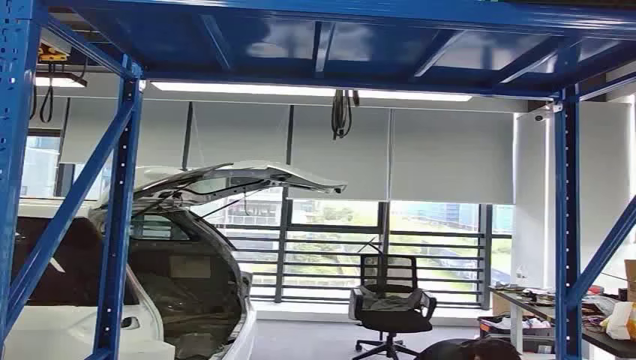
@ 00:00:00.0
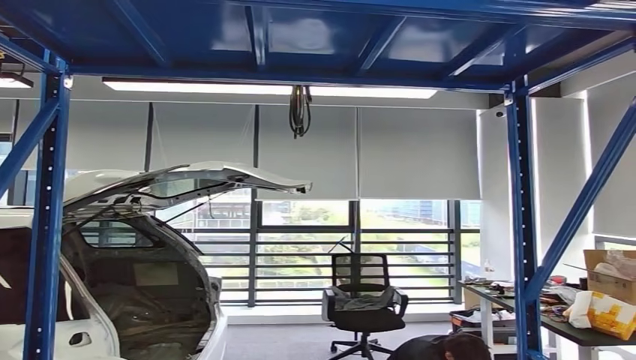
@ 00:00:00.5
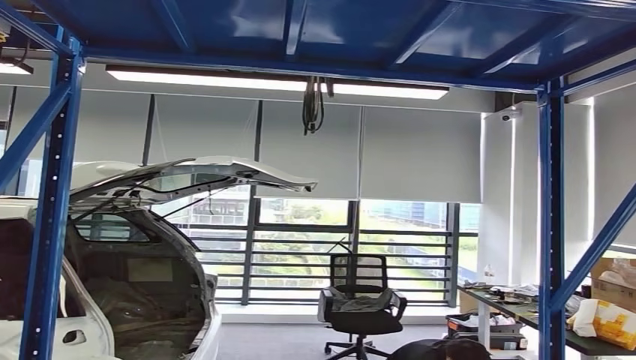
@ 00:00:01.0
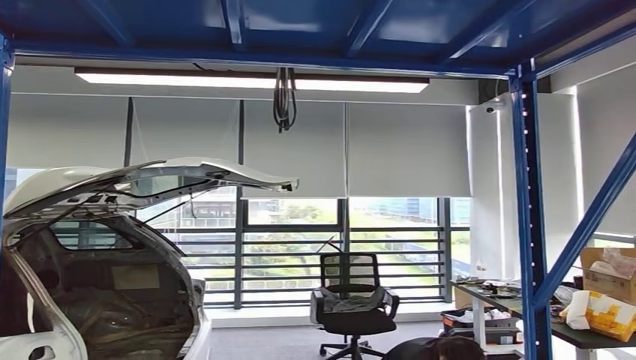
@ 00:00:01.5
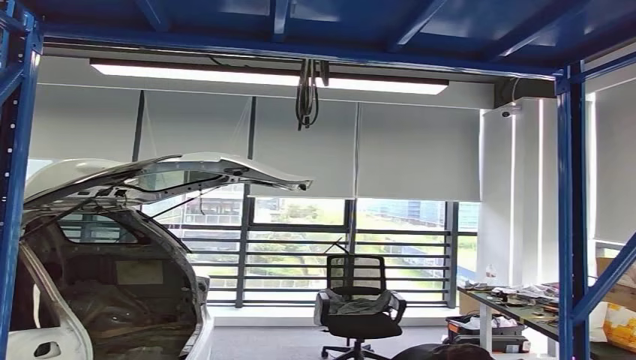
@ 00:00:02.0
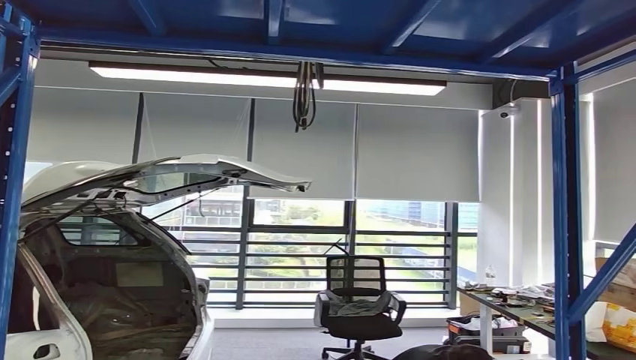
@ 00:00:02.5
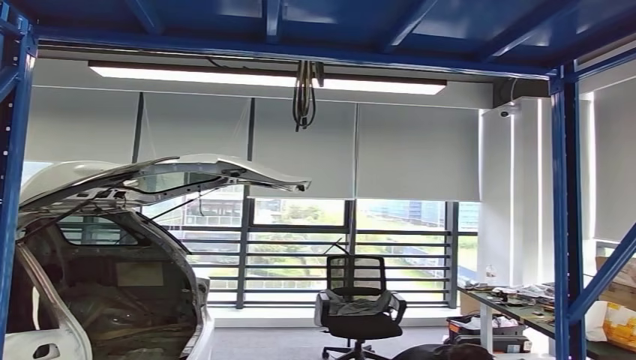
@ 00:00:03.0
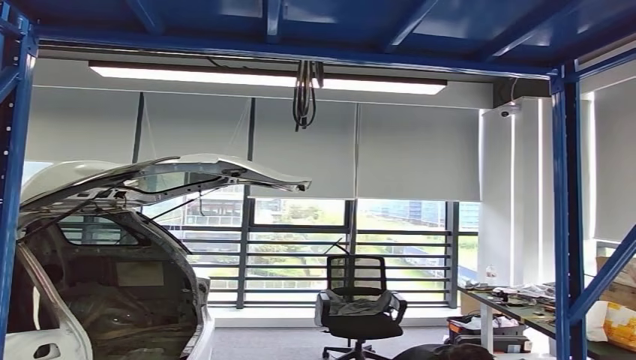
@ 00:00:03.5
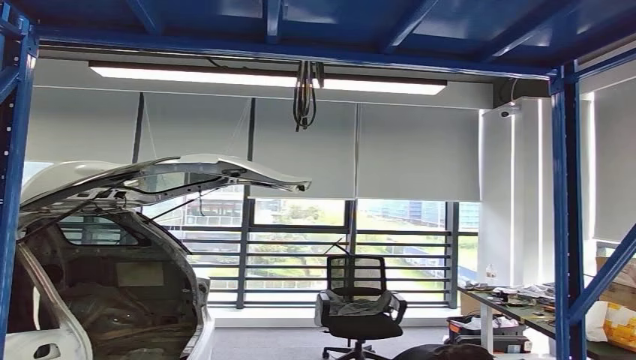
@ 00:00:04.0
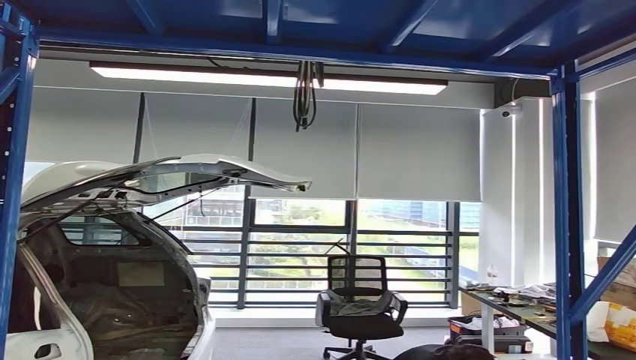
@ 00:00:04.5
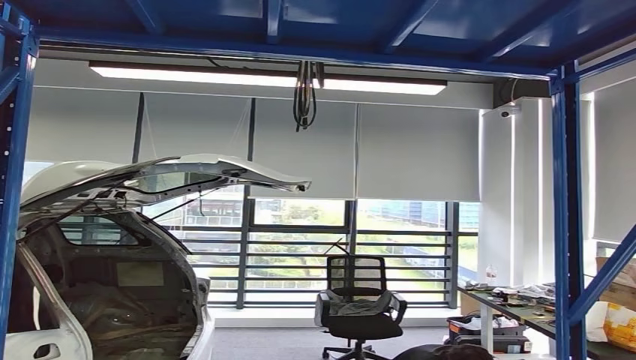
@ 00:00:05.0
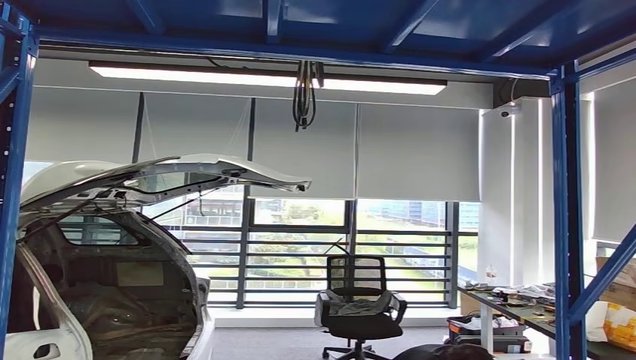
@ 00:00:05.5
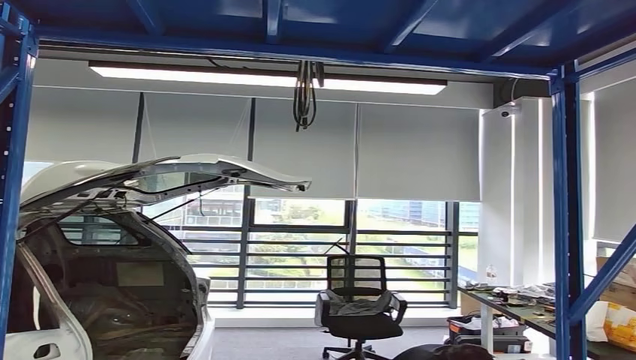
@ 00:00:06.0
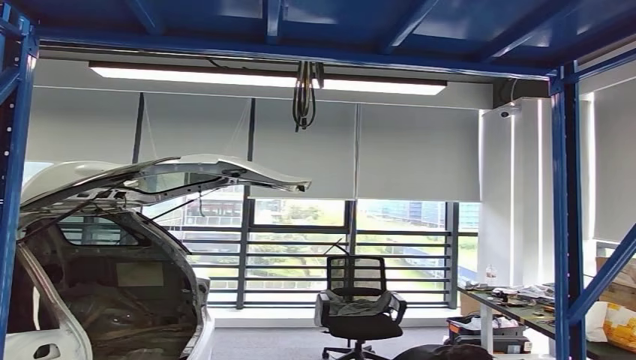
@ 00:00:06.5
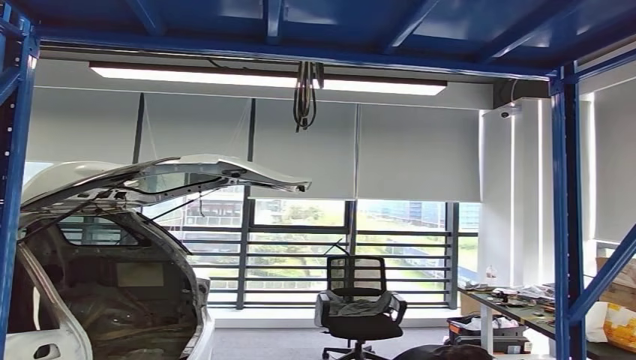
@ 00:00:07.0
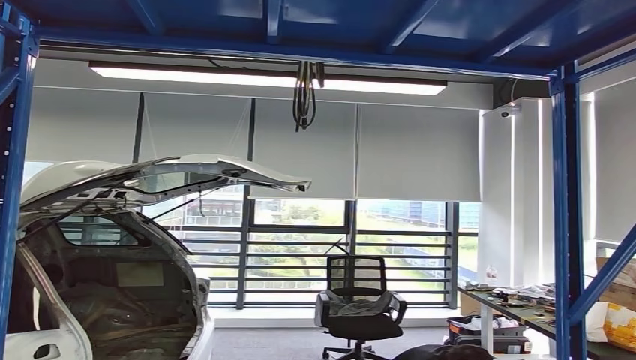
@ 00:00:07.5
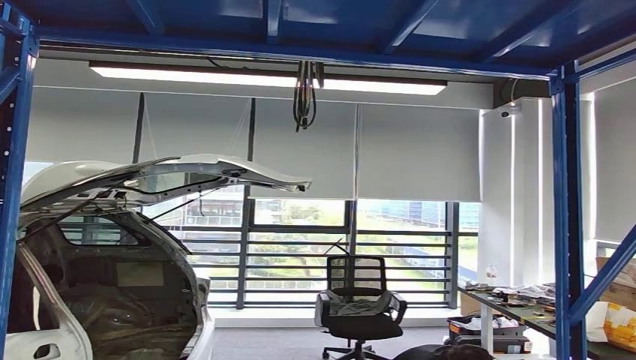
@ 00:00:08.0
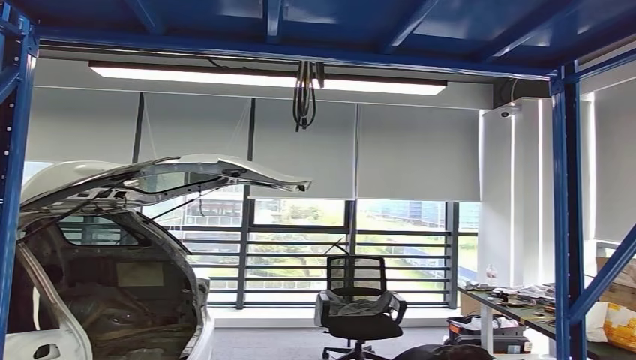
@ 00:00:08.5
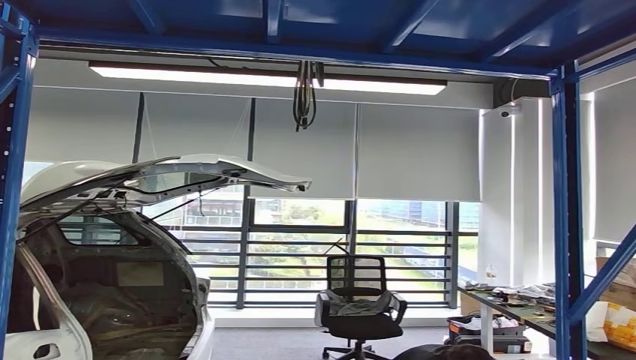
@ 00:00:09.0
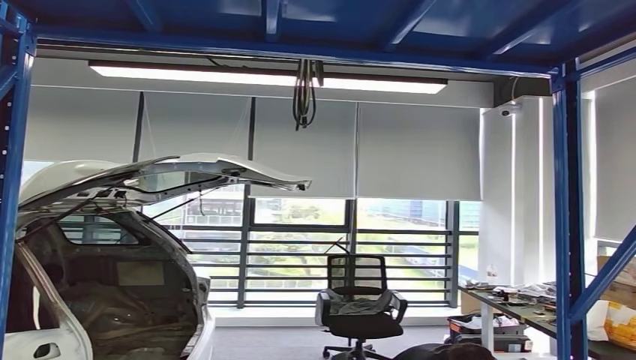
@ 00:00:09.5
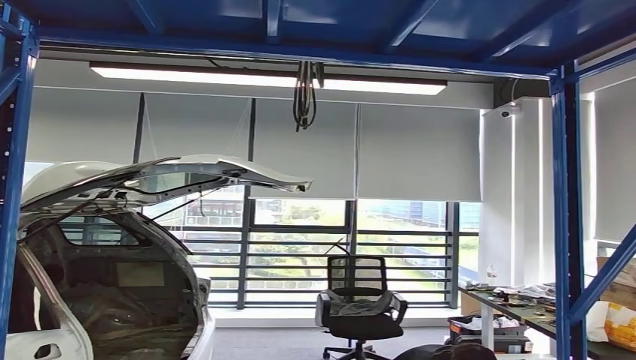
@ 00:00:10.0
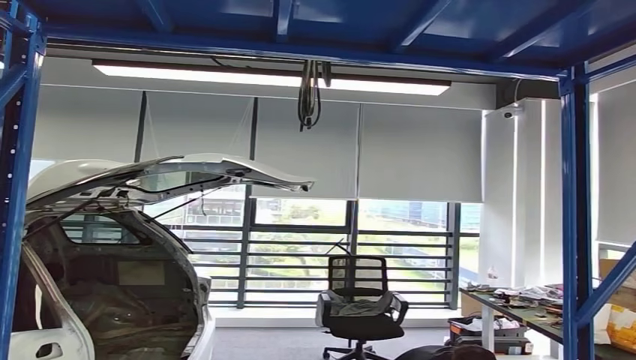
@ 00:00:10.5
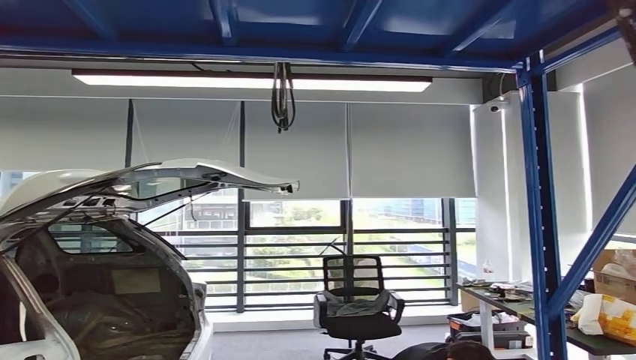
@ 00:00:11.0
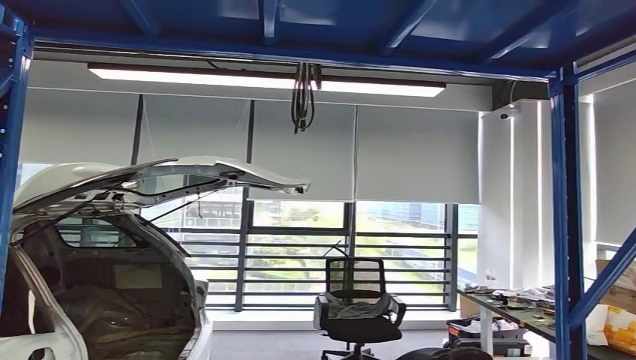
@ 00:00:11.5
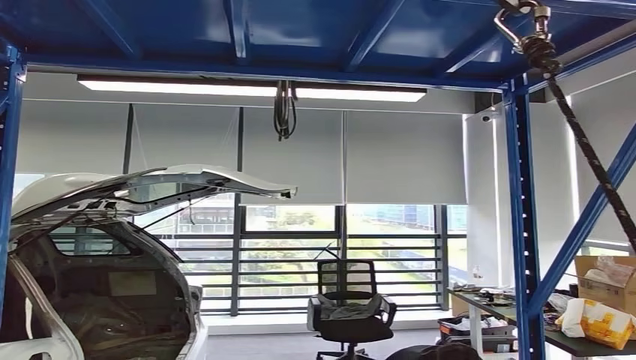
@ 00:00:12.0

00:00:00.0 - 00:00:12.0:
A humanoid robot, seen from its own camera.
Step, 00:00:00.0 - 00:00:09.0: Pick up the small component from the shelf.
00:00:02.0 - 00:00:04.0: The left hand moves to the right, some 5 cm, while the right hand travels forward by approximately 5 cm.

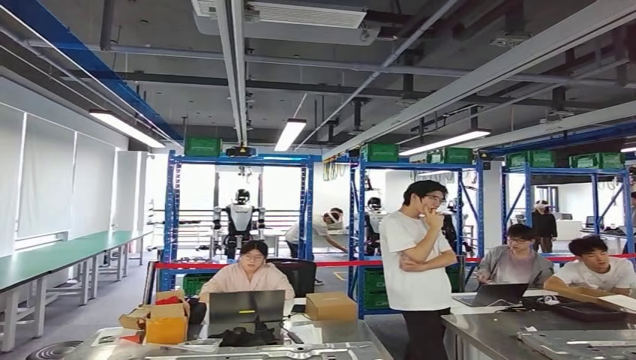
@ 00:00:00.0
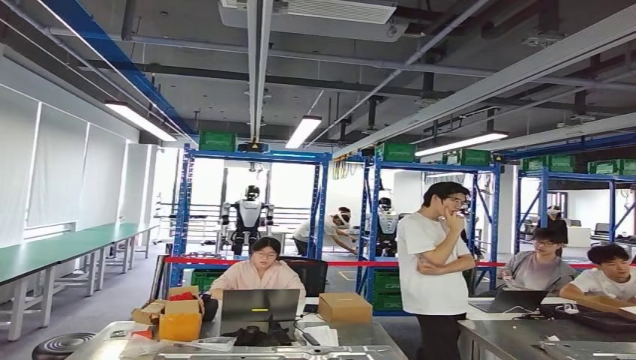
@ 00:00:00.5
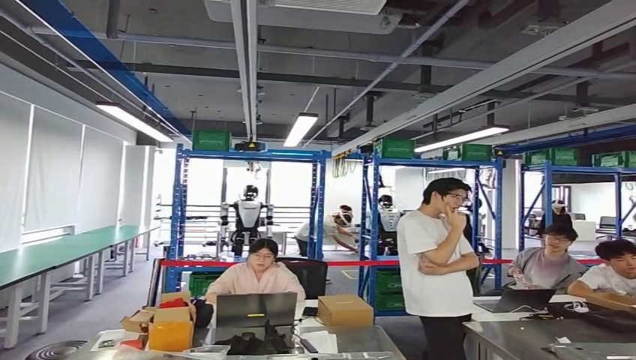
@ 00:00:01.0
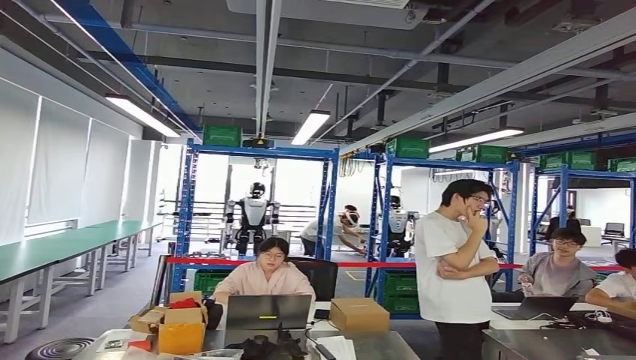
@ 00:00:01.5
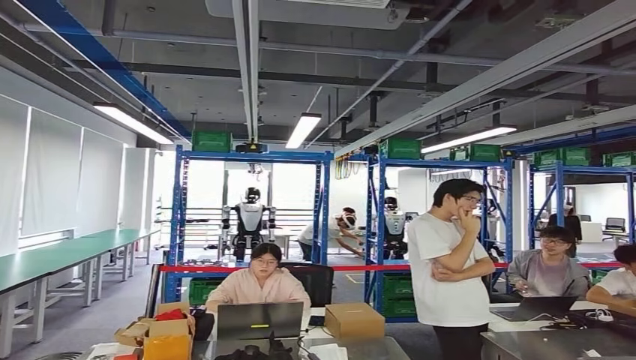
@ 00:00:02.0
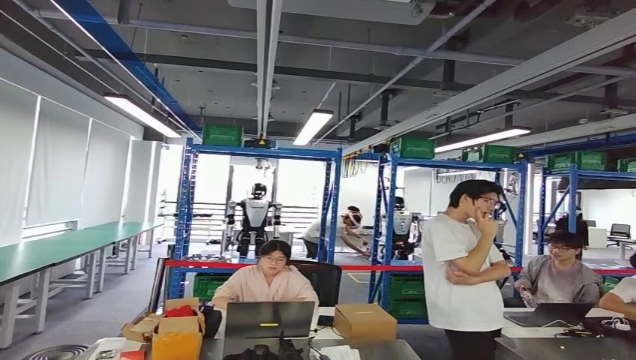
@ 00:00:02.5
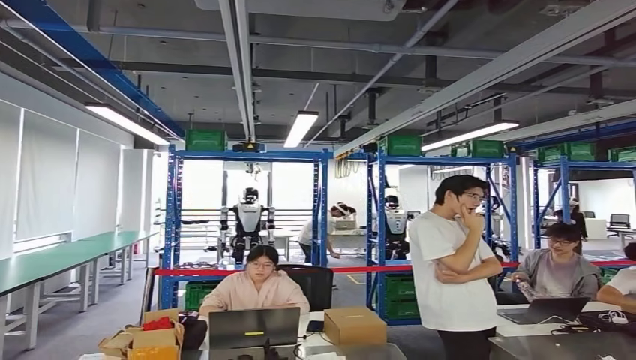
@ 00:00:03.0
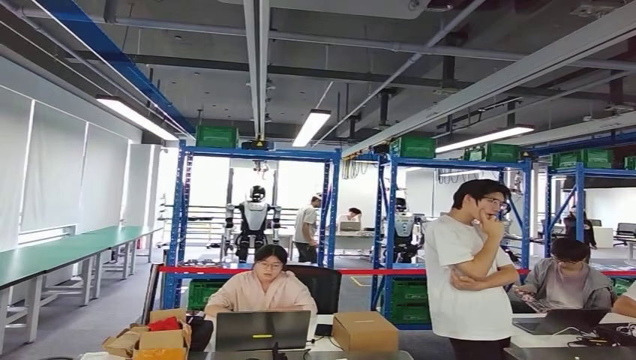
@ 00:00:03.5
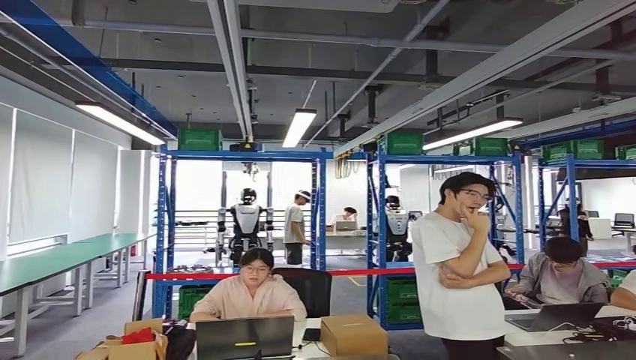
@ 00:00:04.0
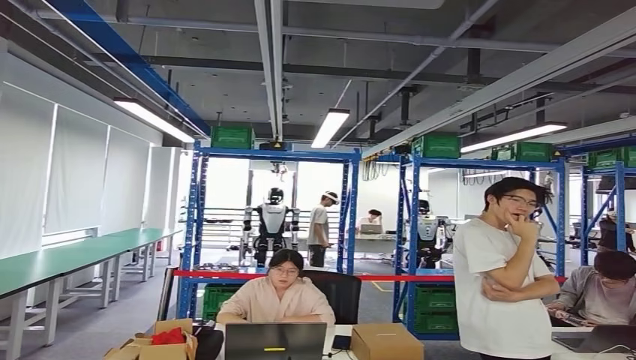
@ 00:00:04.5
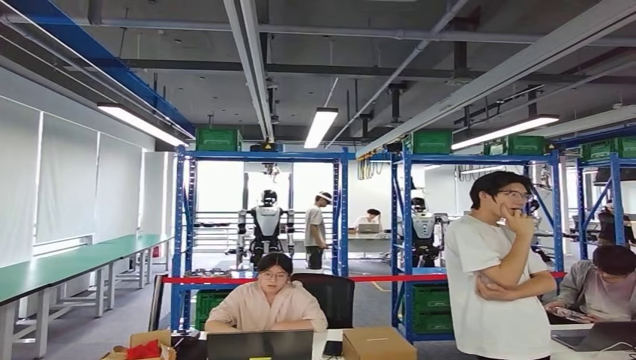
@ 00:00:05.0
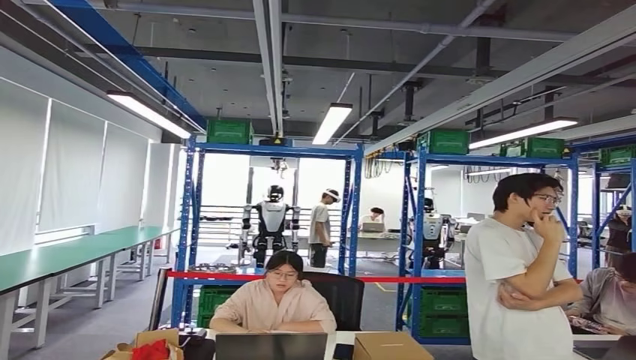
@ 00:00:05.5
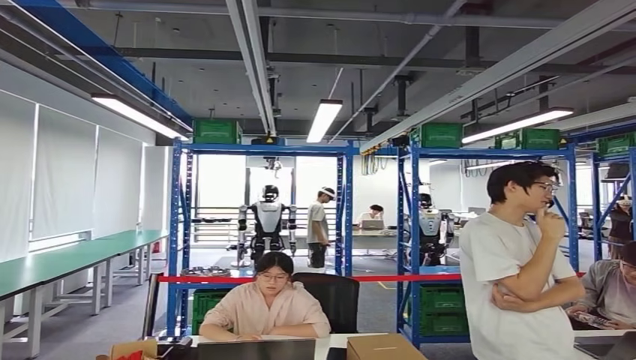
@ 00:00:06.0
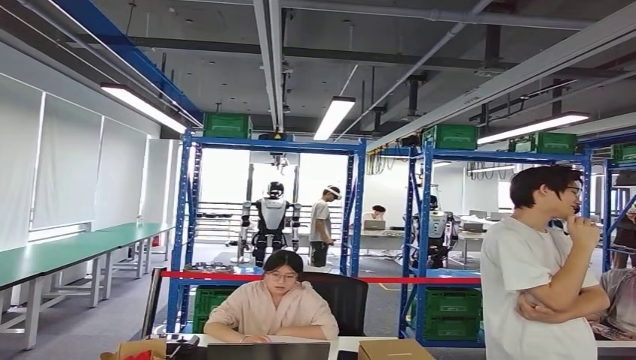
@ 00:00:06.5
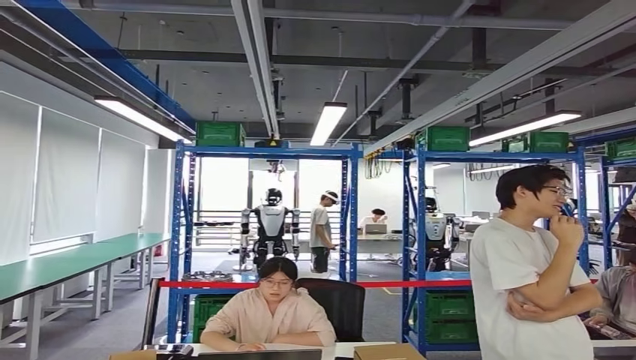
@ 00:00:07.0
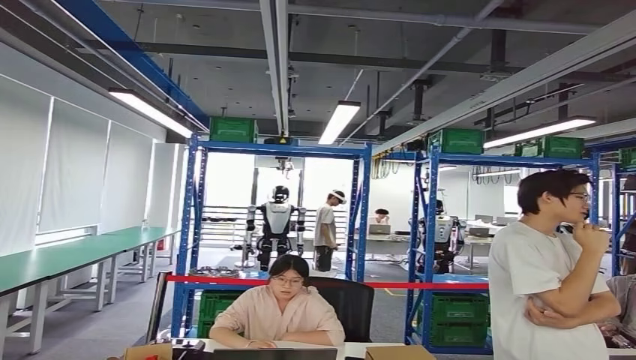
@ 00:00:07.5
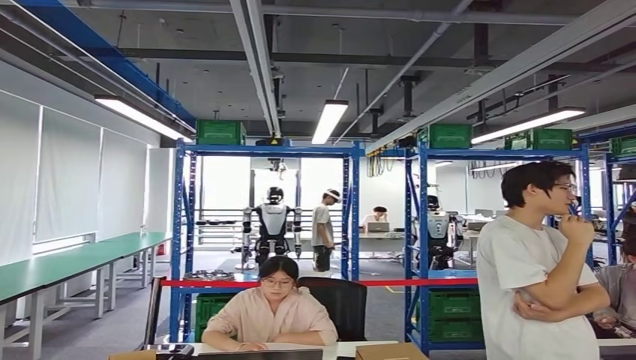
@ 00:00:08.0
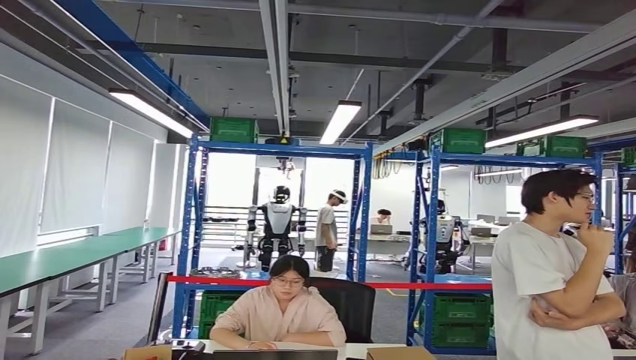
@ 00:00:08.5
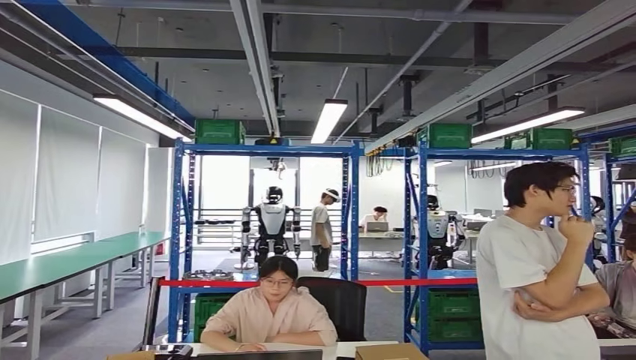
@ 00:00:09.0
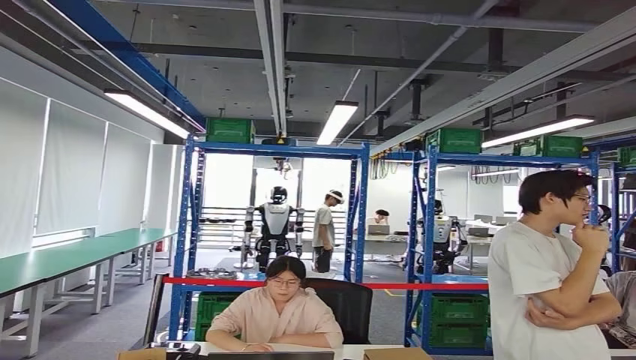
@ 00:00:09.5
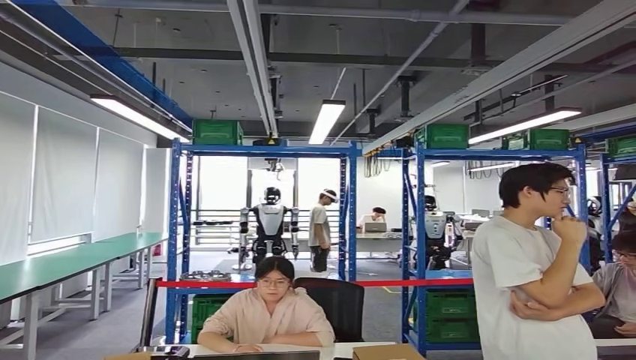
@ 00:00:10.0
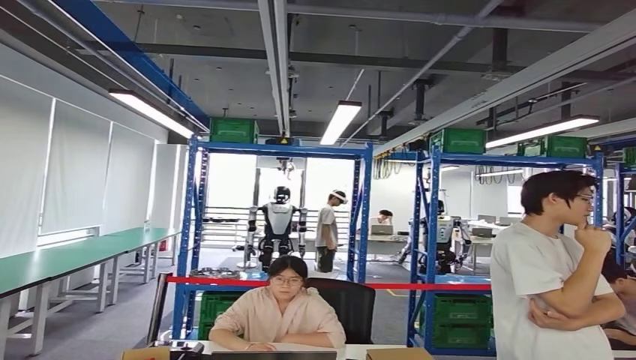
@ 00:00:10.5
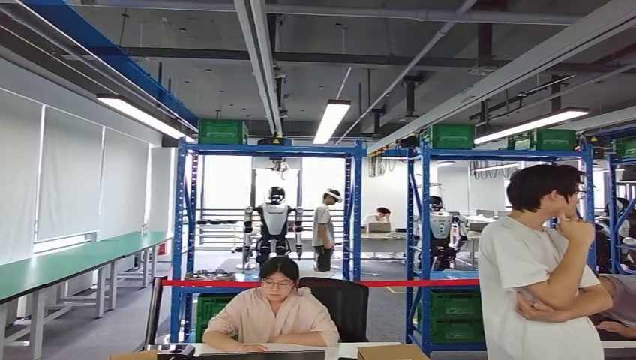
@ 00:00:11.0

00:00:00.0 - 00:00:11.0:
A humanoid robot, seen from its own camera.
Step, 00:00:00.0 - 00:00:08.0: Bring the small component to the front of the workbench.
